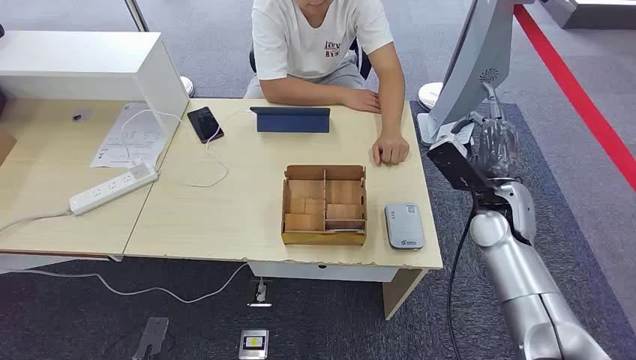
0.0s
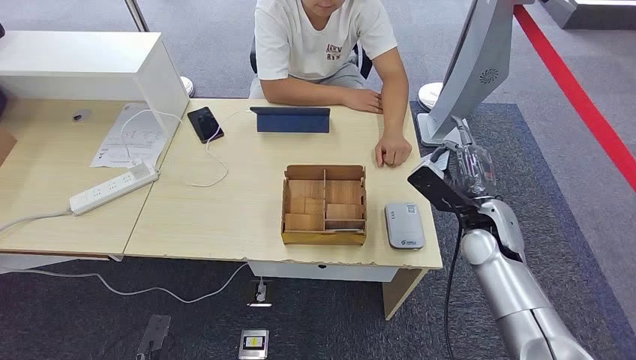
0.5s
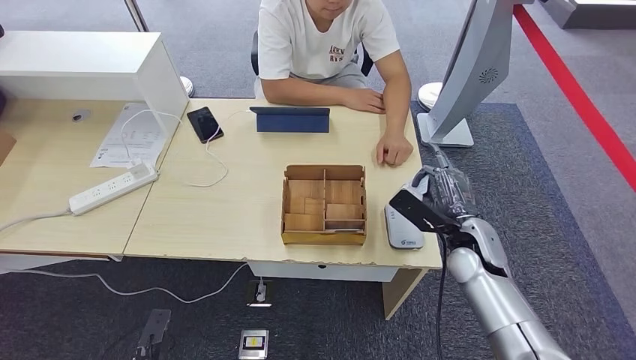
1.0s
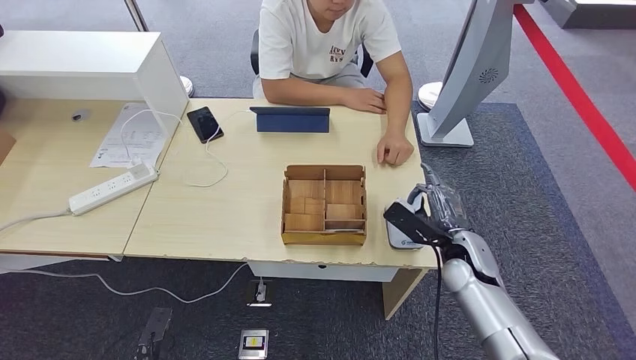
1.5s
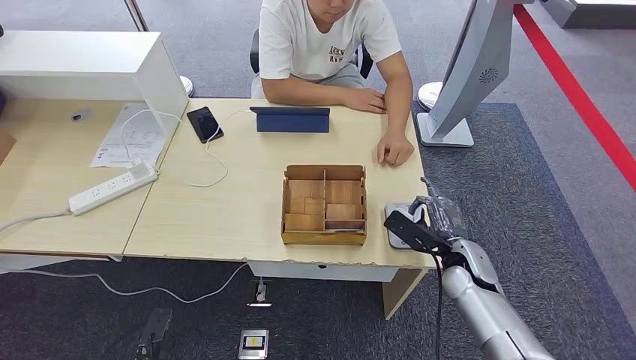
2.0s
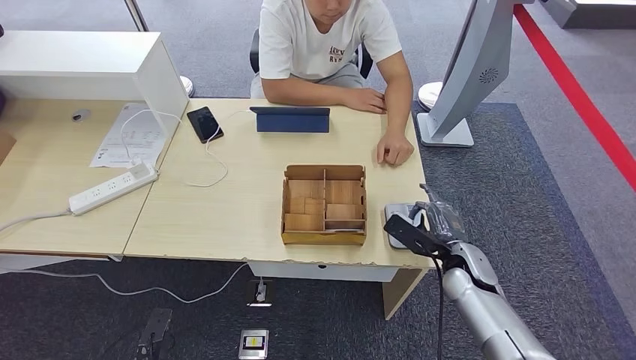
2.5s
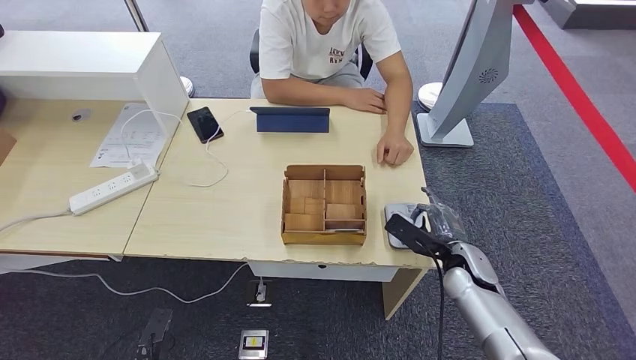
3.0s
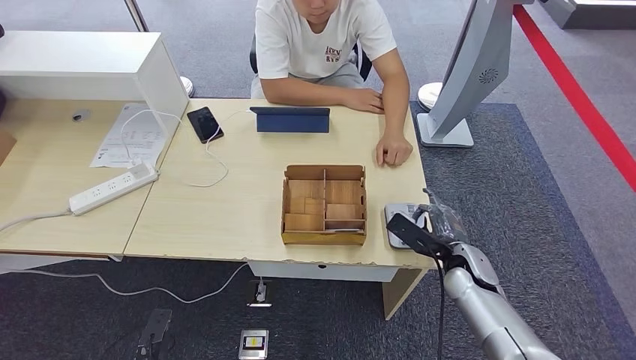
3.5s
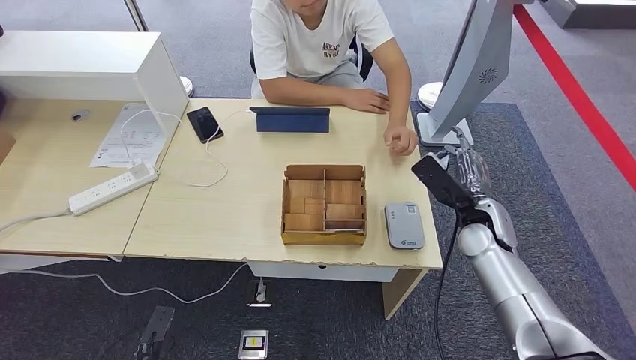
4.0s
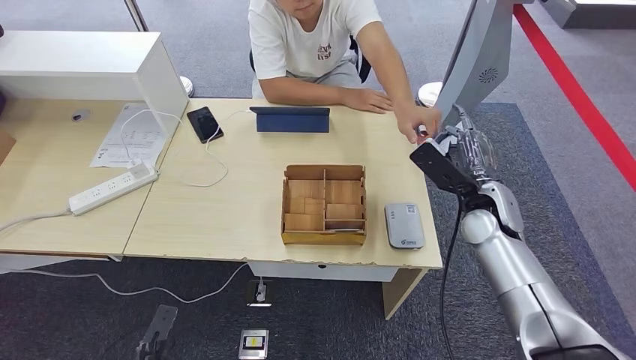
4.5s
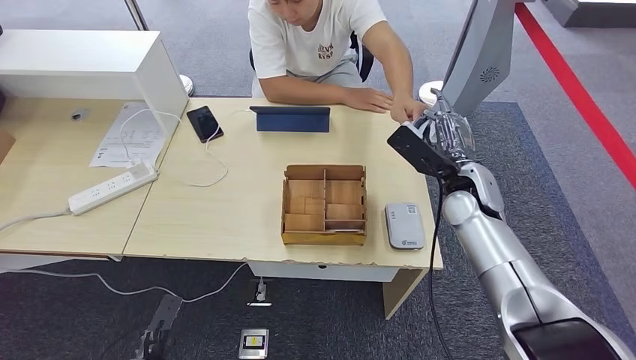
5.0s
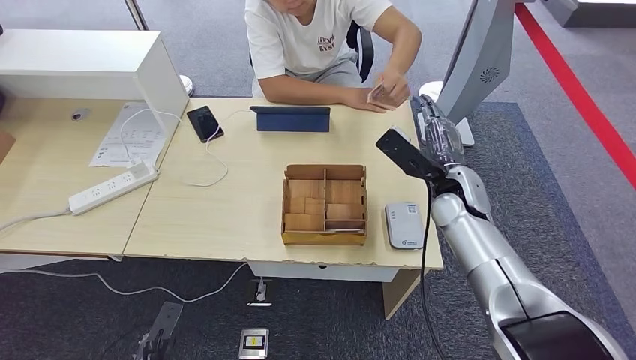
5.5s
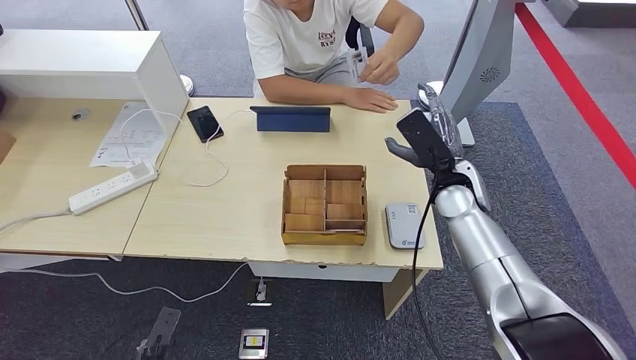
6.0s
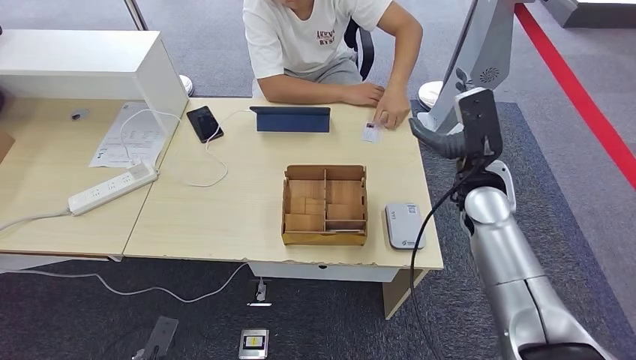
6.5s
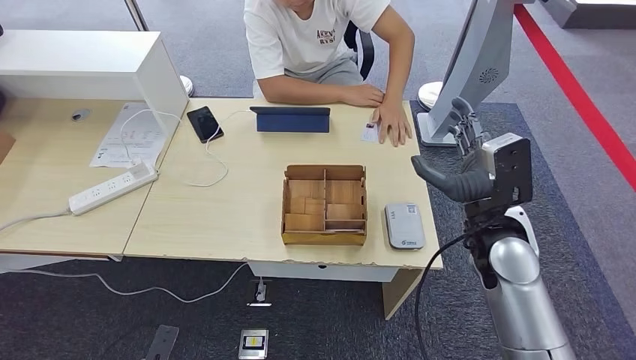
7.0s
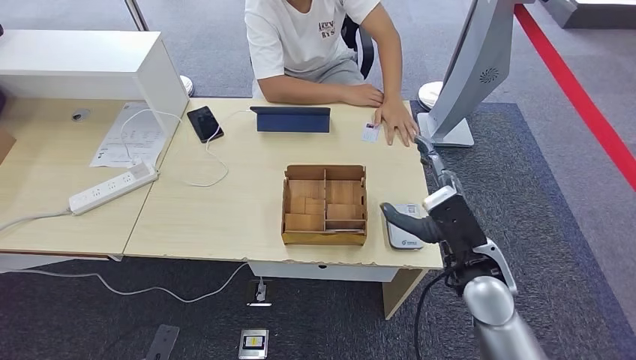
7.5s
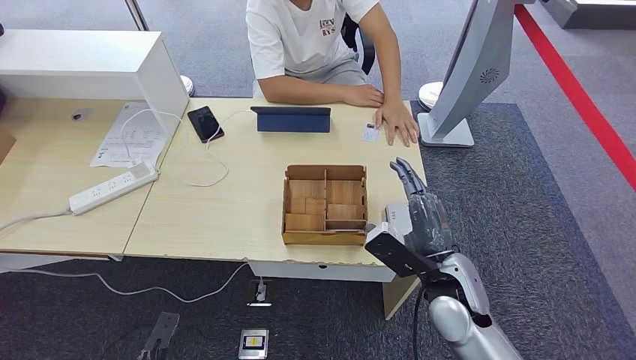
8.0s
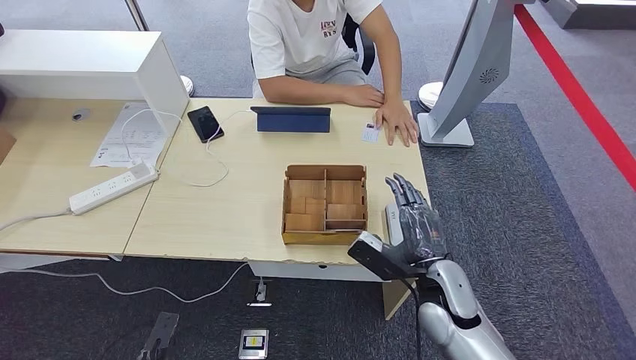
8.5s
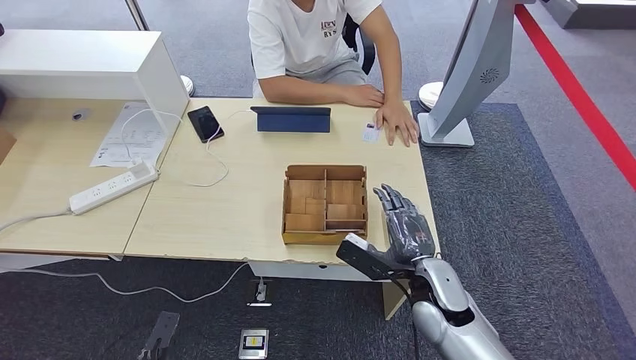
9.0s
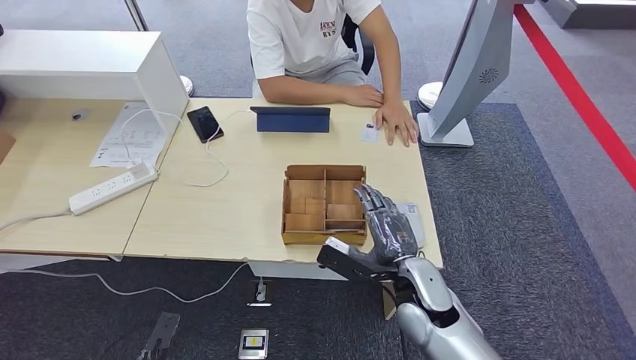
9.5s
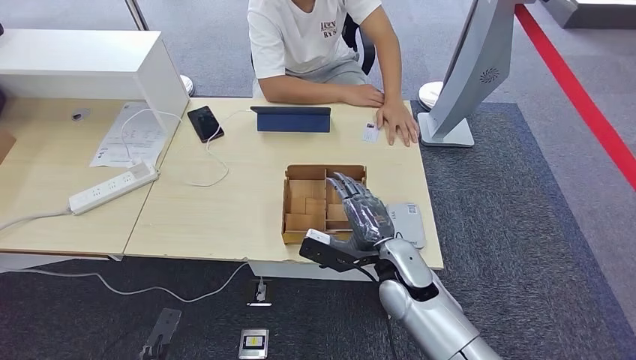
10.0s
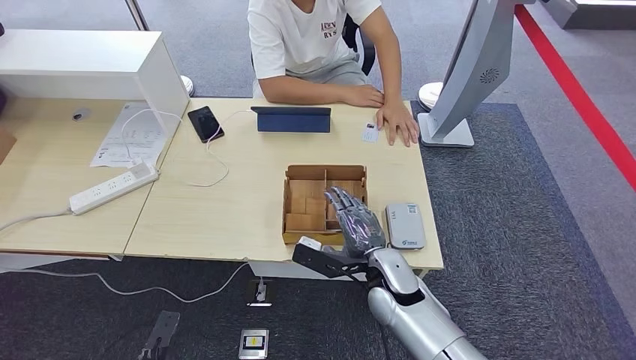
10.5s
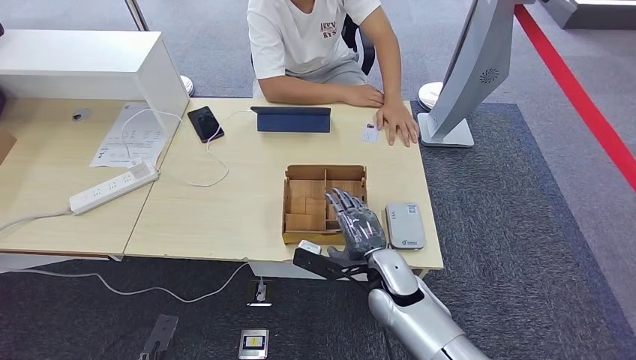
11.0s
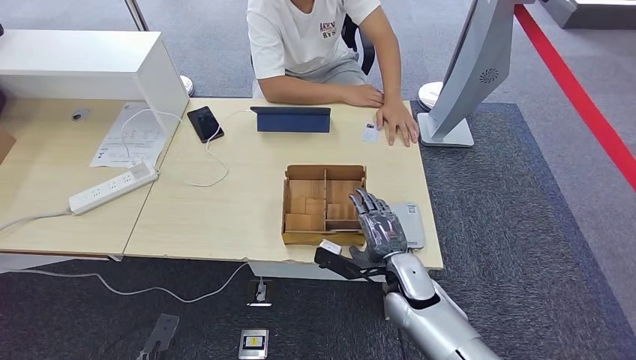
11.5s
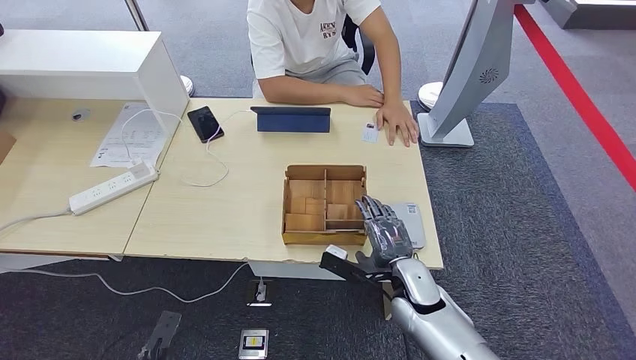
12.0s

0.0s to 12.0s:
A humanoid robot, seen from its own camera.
Step, 0.0s to 1.5s: Take the ID card from the person's hand.
Step, 2.0s to 3.5s: Place the ID card on the card reader.
Step, 4.0s to 6.5s: Hand the ID card to the person.
2.0s to 4.0s: The right hand travels upward by about 5 cm.
4.0s to 6.0s: The right hand shifts some 10 cm to the left and upward.
6.0s to 8.0s: The right hand is displaced backward and downward by approximately 15 cm.
8.0s to 10.0s: The right hand moves to the left, some 5 cm.
10.0s to 12.0s: The right hand is displaced downward by about 5 cm.

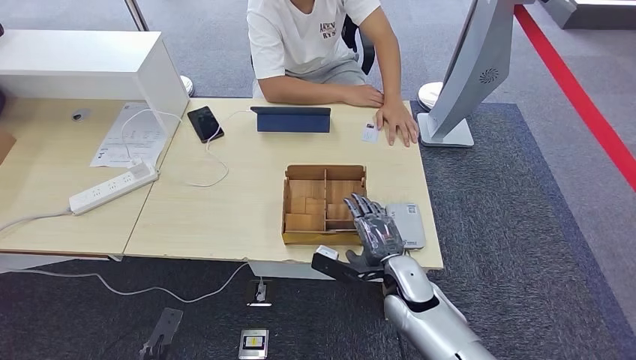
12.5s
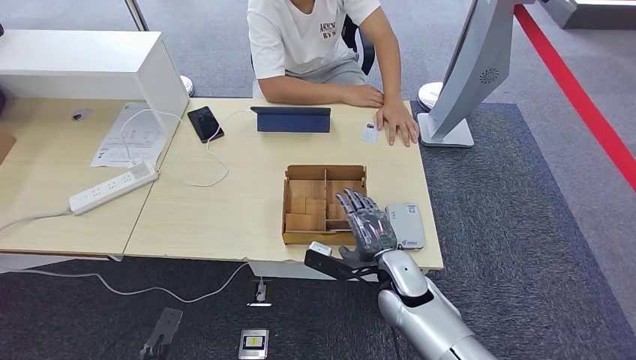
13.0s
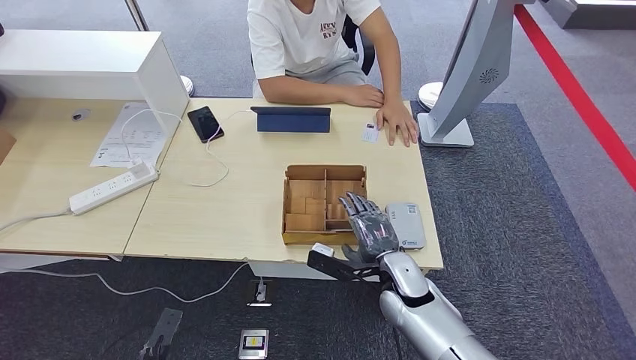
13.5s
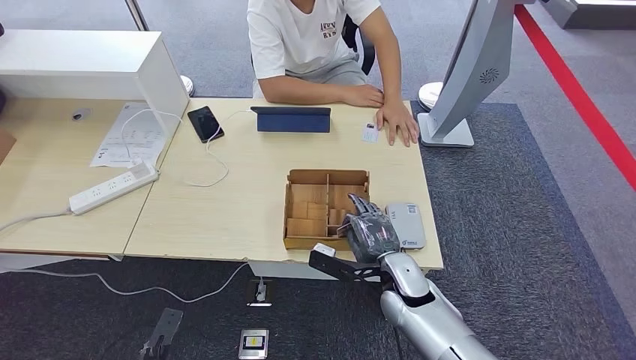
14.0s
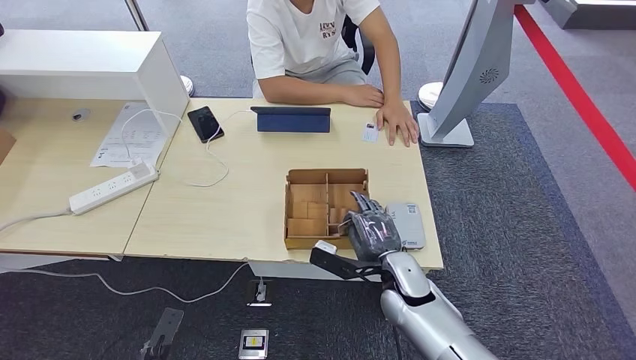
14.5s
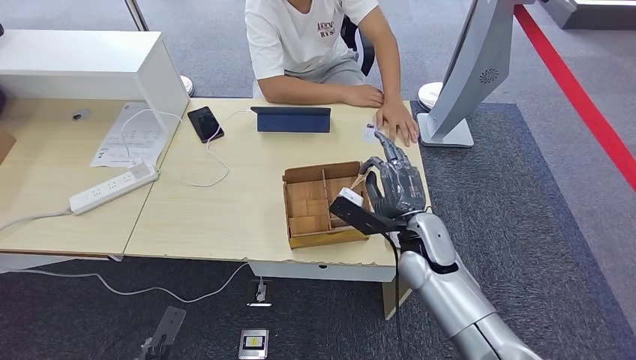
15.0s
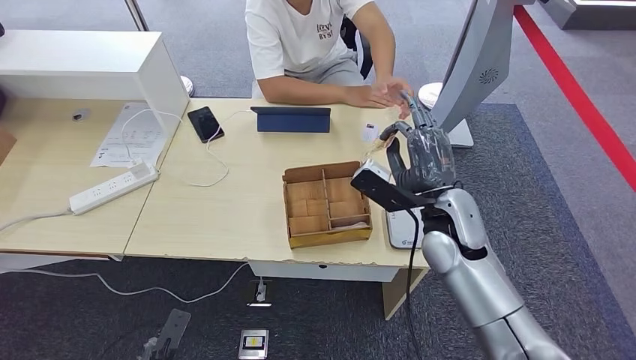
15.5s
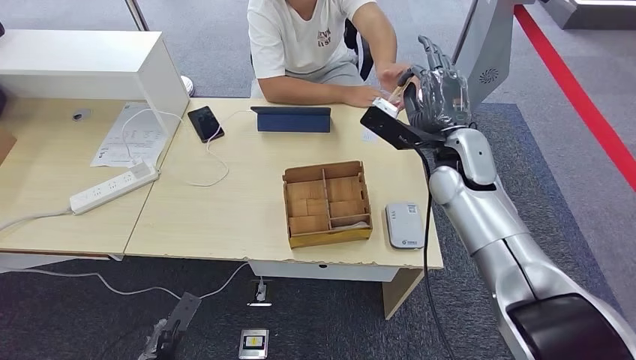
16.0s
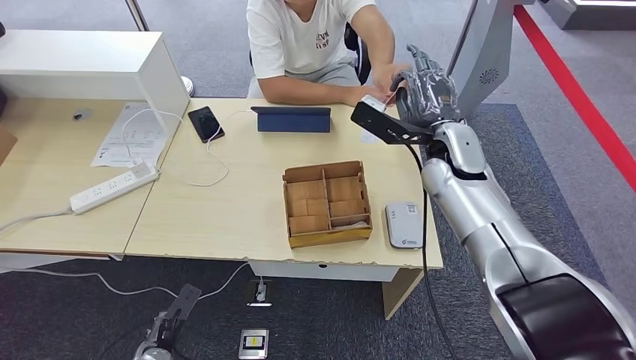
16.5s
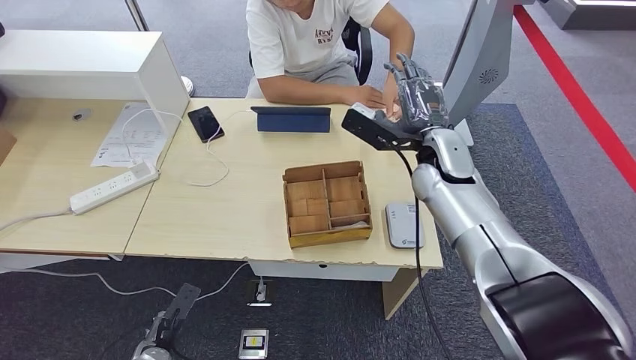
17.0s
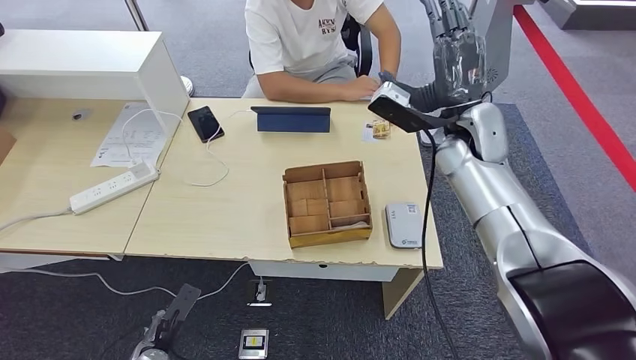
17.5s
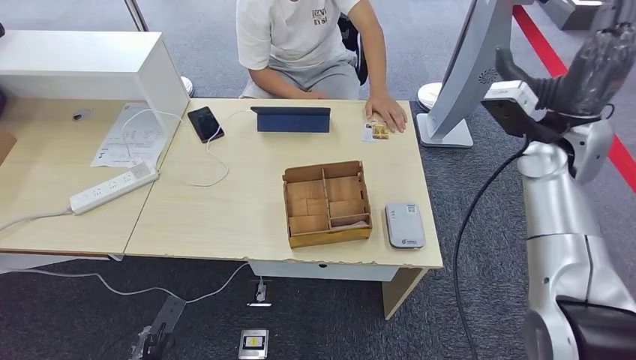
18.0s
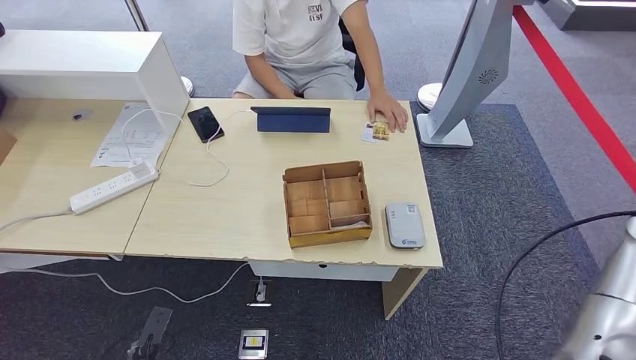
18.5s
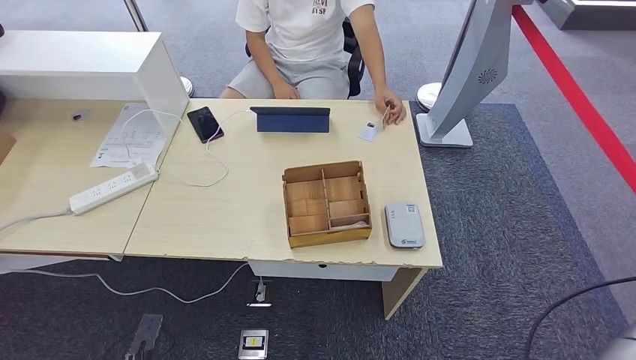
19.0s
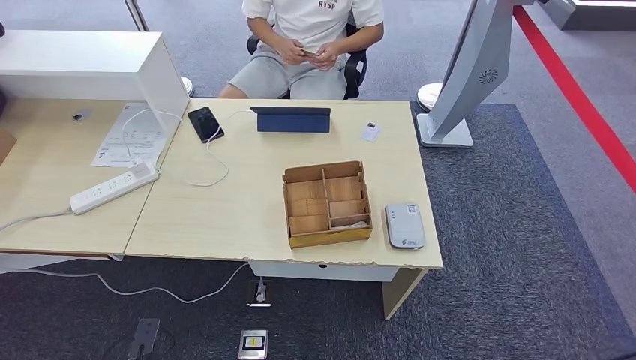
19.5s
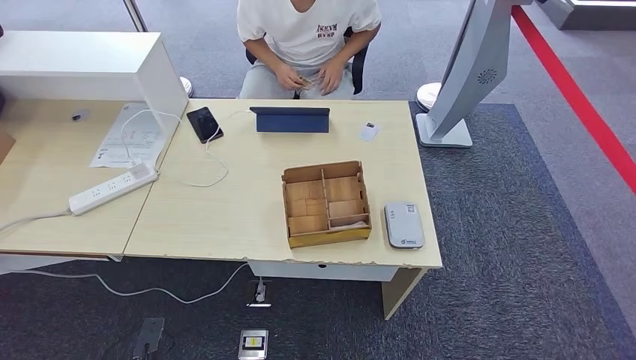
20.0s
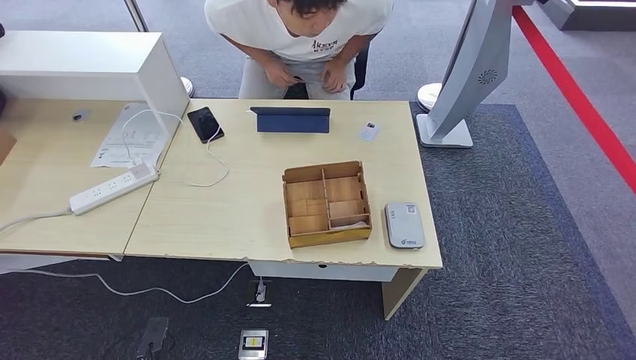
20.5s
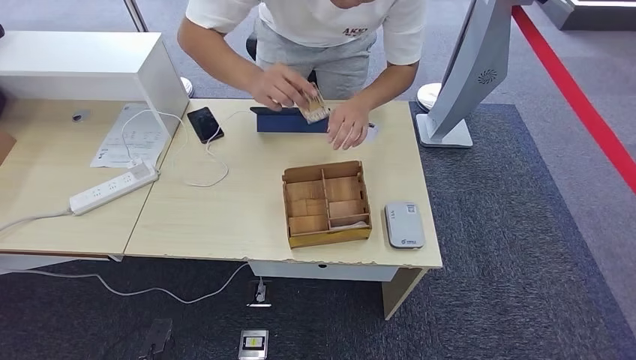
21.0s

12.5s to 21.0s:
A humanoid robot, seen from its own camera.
Step, 12.5s to 15.0s: Pick up the room key from the key card box.
Step, 16.0s to 21.0s: Hand the room key to the person.
12.5s to 14.5s: The hands make only small movements.
14.5s to 16.5s: The left hand goes about 5 cm forward; the right hand goes some 25 cm upward and forward.
16.5s to 19.0s: The right hand shifts roughly 35 cm to the right and backward, while the left hand heads backward, covering approximately 5 cm.
19.0s to 21.0s: The right hand shifts some 35 cm downward and backward.
